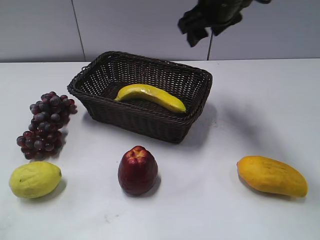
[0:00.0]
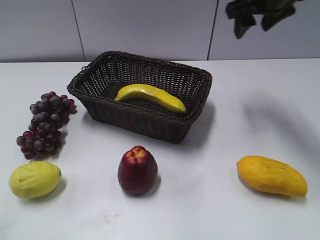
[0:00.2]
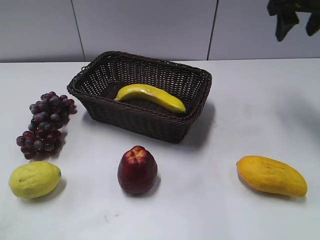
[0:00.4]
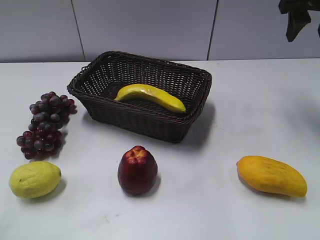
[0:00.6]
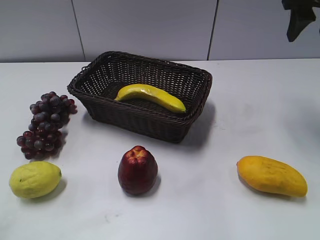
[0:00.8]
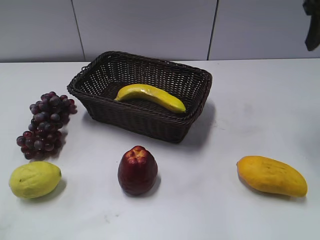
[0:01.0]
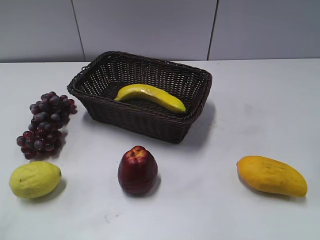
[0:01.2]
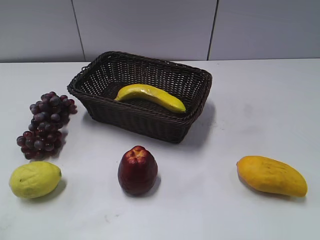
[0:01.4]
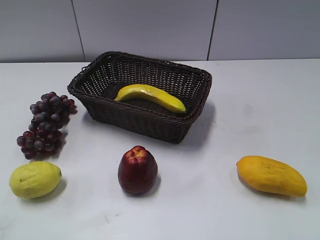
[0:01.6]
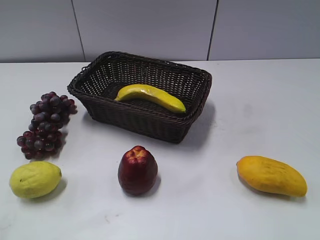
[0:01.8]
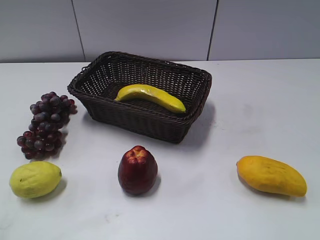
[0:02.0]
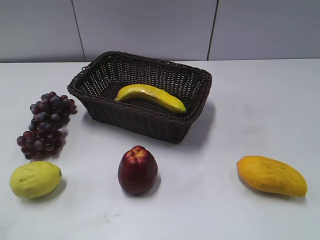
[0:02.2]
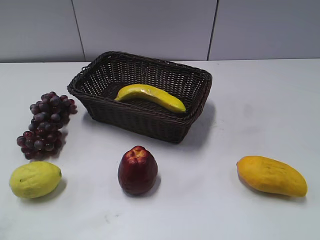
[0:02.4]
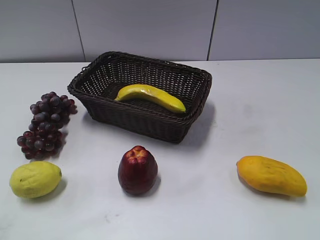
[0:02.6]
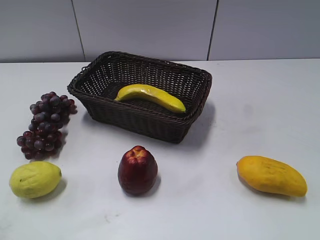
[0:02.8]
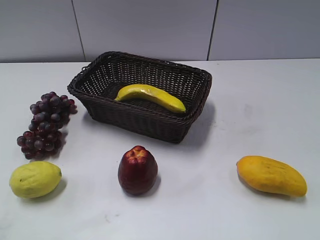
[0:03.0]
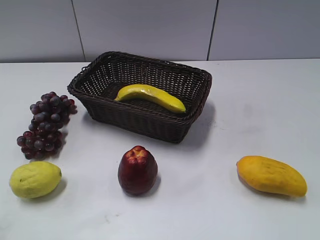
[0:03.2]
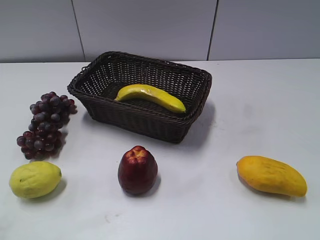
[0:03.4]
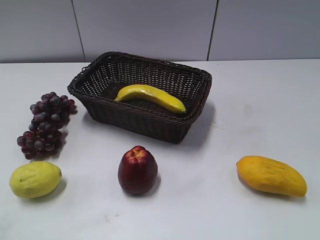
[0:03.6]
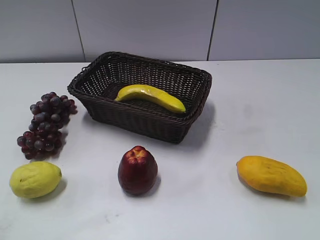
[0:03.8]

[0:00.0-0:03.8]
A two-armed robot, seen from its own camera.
0:00.0 to 0:01.2: The right gripper goes approximately 25 cm backward and to the right.
